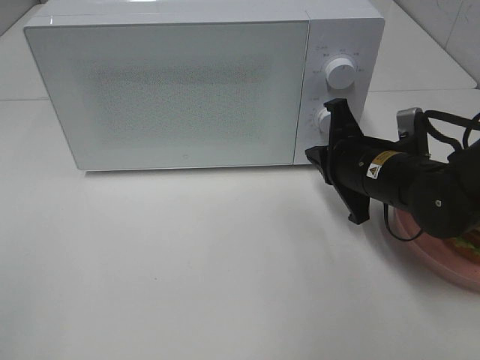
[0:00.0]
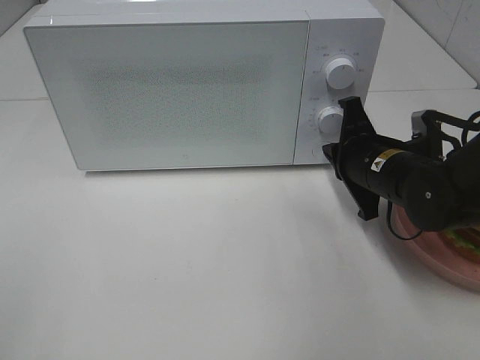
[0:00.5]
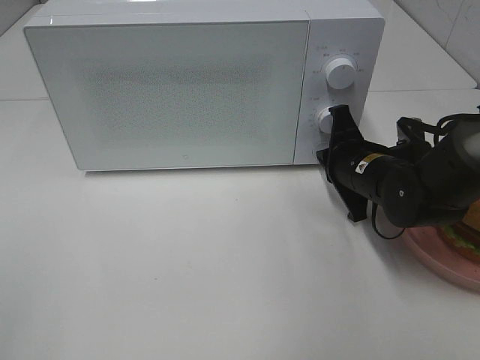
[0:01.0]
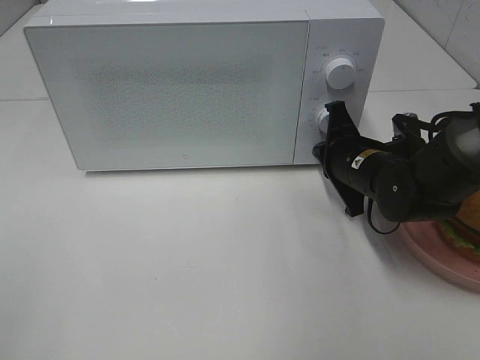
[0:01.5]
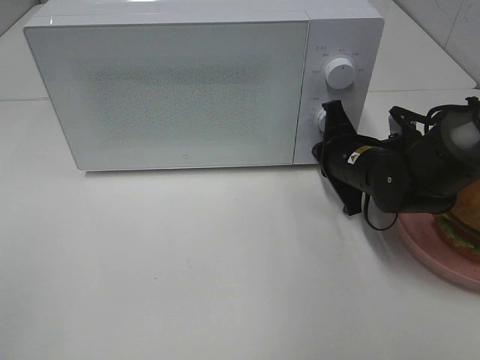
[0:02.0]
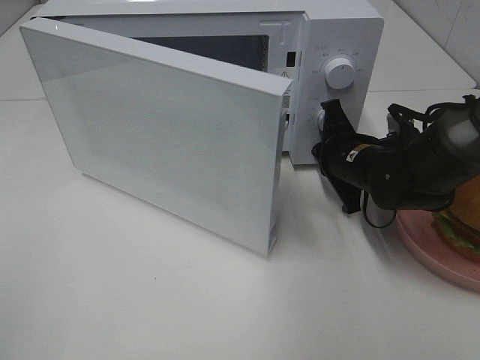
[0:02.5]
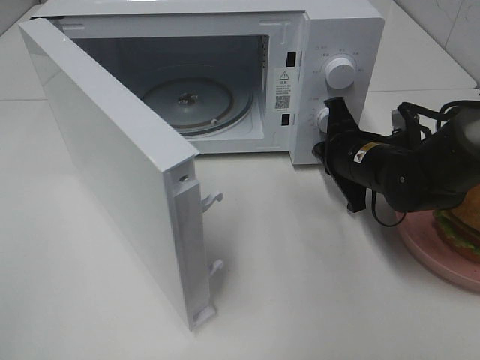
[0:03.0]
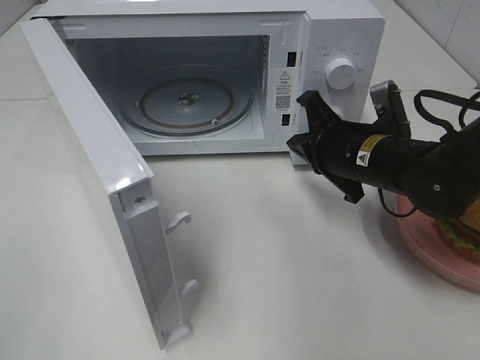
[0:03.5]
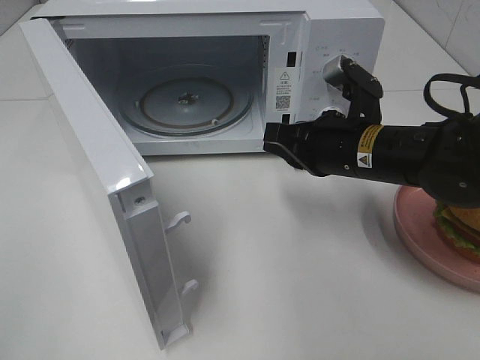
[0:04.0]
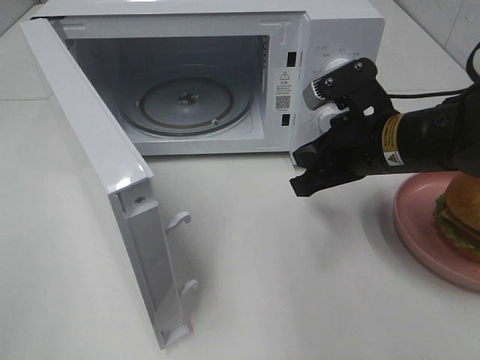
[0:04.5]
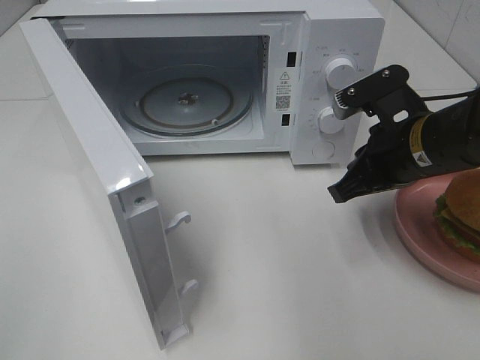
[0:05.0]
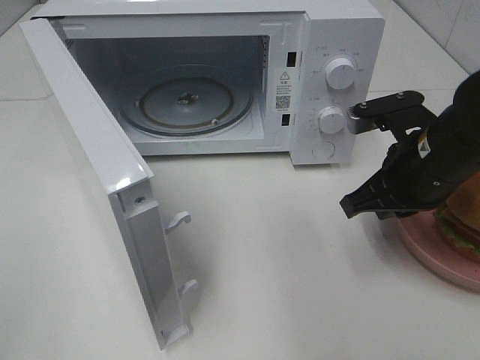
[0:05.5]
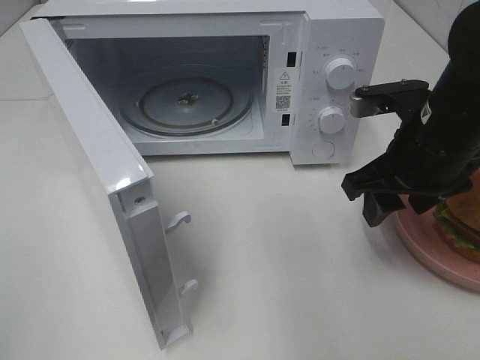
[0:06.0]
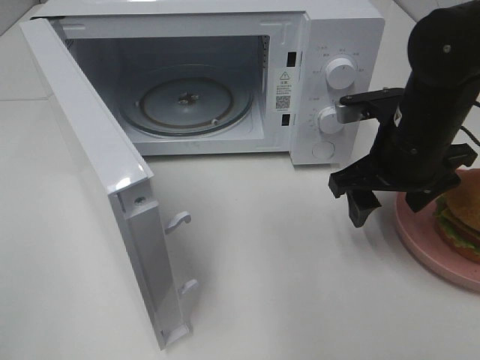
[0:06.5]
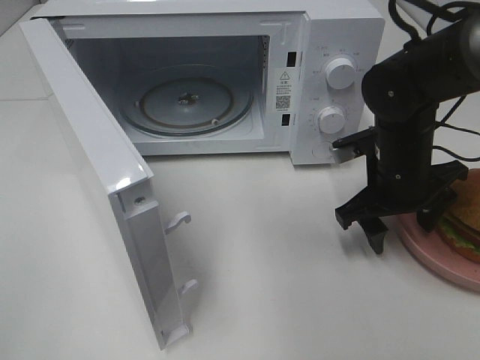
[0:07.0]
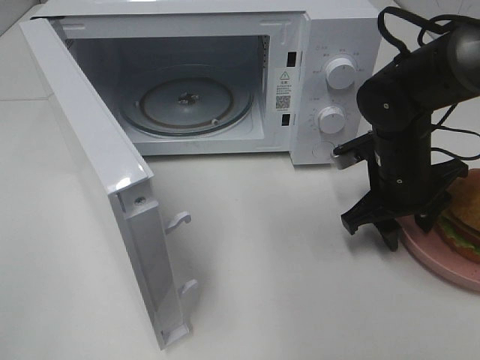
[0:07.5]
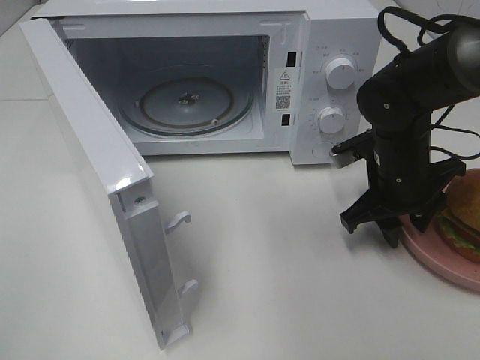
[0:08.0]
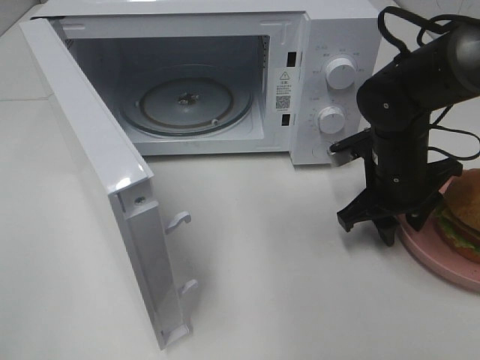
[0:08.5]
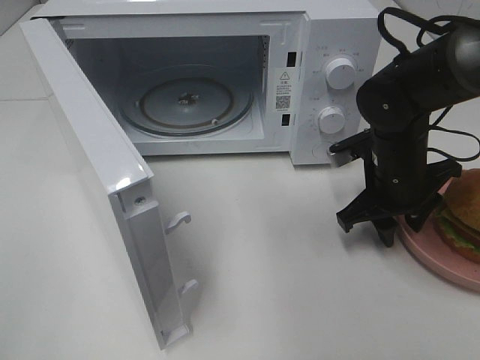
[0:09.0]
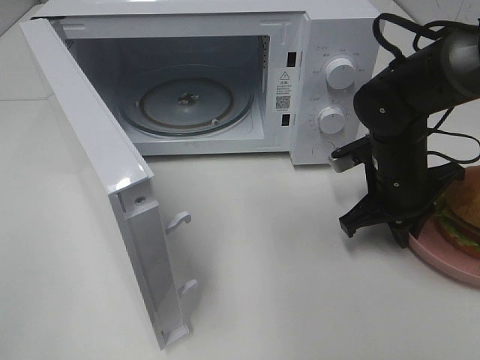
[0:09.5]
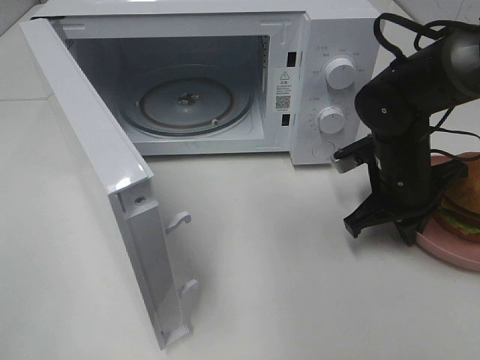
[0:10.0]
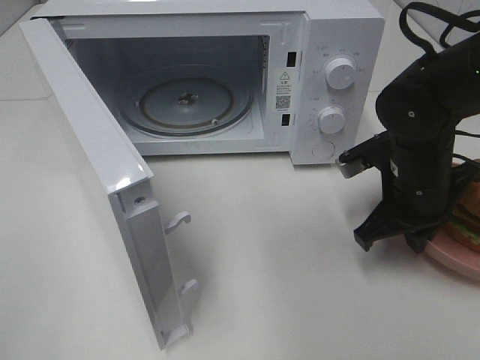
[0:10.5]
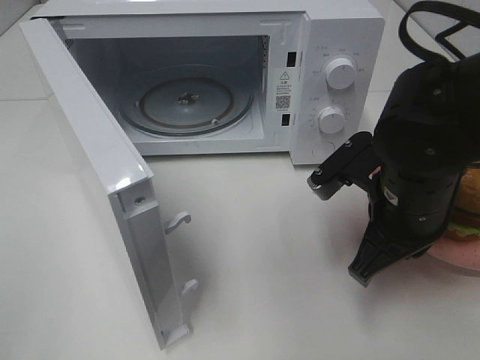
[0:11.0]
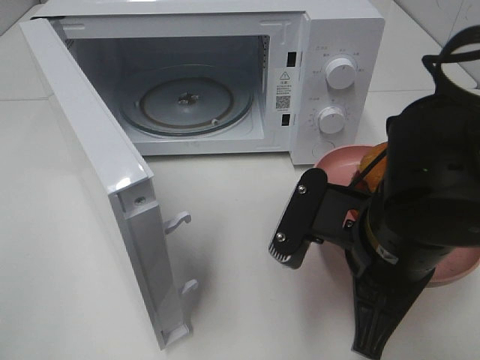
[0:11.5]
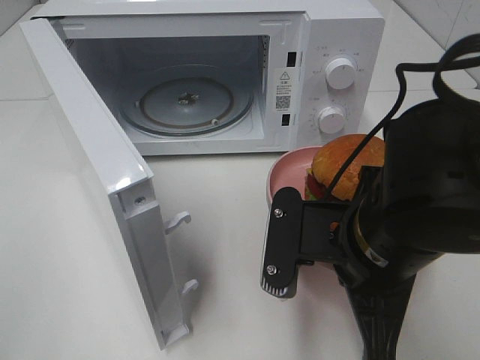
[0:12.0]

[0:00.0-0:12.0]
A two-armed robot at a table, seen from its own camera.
Task of the whole recording: Heat the burger.
Step, 0:00.0 to 0:03.0: Right hand: press the switch.
Step, 0:03.5 to 0:10.0: Right hand: grab the plate with the hamburger.
0:00.0 to 0:02.0: The right gripper changes place by about 5 cm.
0:02.0 to 0:04.0: The right gripper is displaced upward and backward by some 10 cm.
0:04.0 to 0:06.0: The right gripper shifts roughly 5 cm to the right, and opens up.
0:06.0 to 0:08.0: The right gripper goes some 10 cm downward and forward.
0:08.0 to 0:10.0: The right gripper closes.
0:10.0 to 0:12.0: The right gripper heads backward, to the left and upward, covering roughly 20 cm.

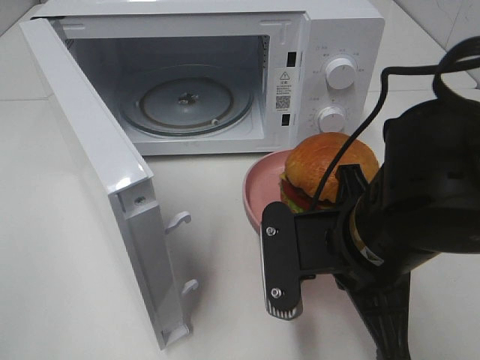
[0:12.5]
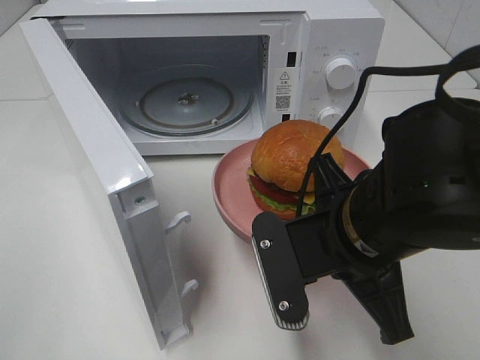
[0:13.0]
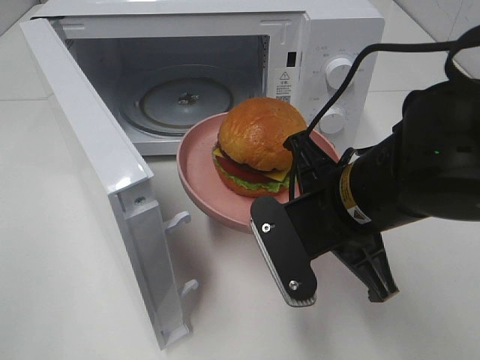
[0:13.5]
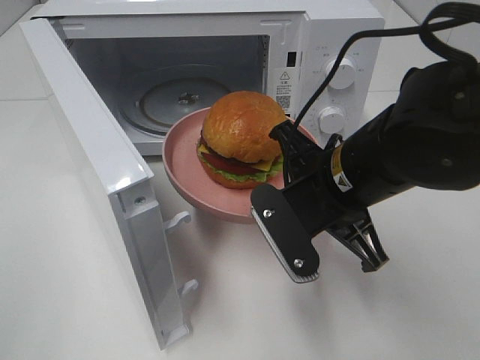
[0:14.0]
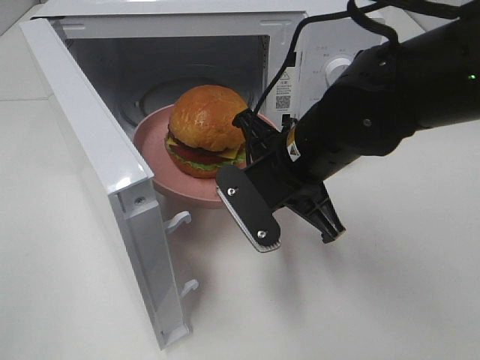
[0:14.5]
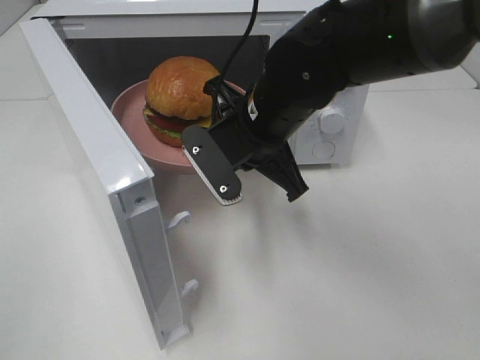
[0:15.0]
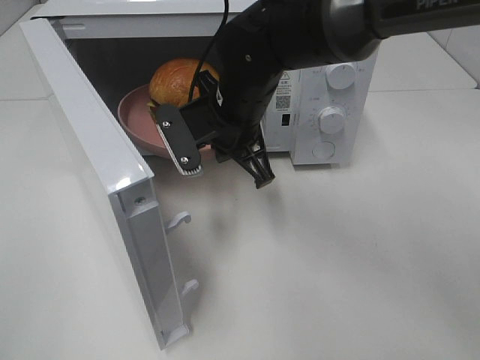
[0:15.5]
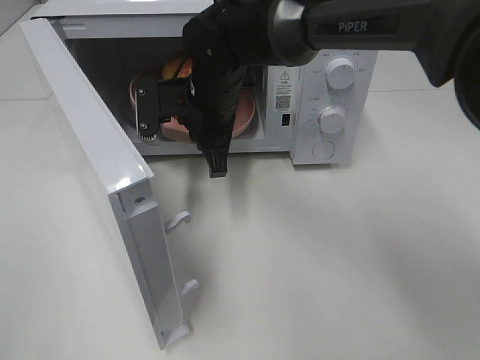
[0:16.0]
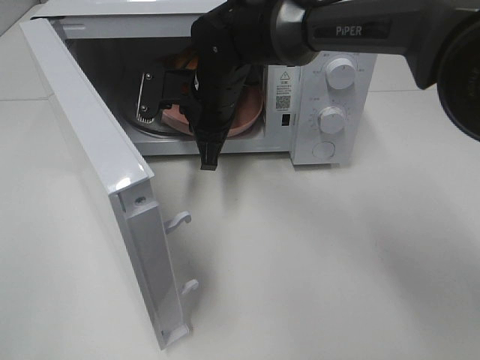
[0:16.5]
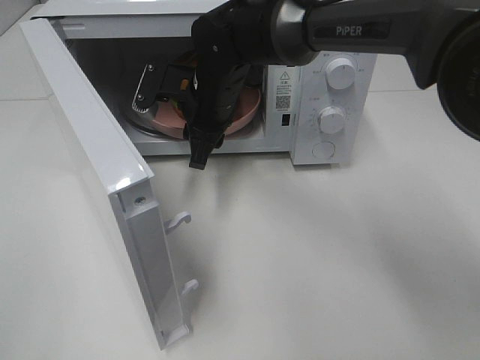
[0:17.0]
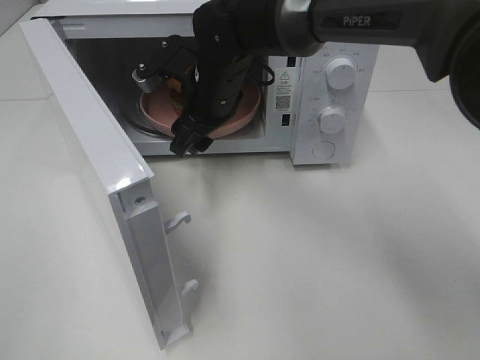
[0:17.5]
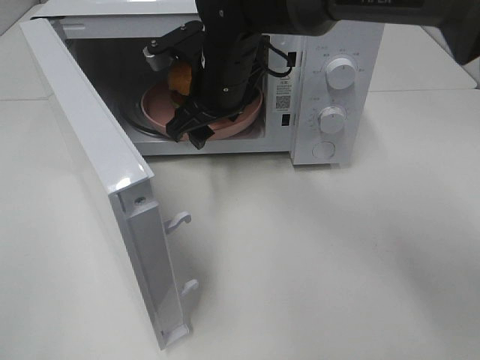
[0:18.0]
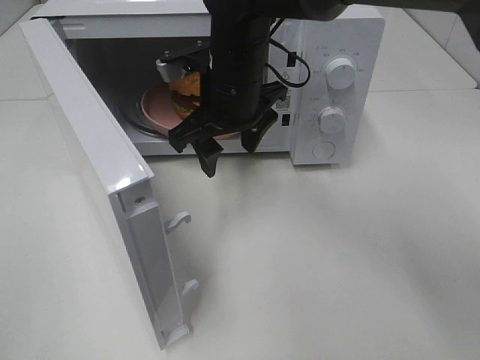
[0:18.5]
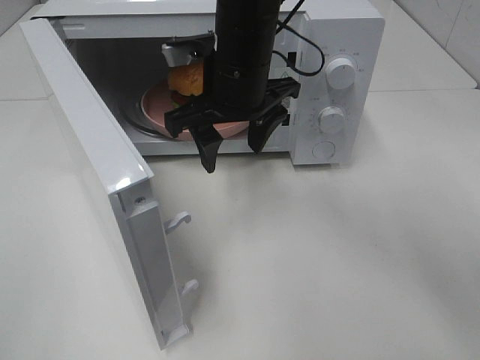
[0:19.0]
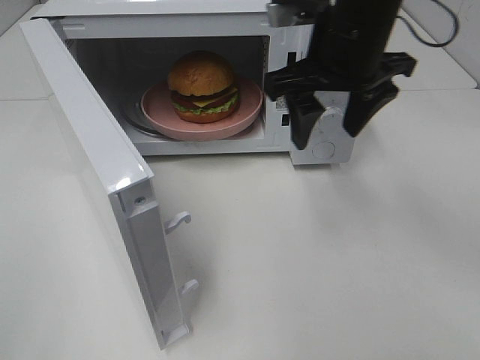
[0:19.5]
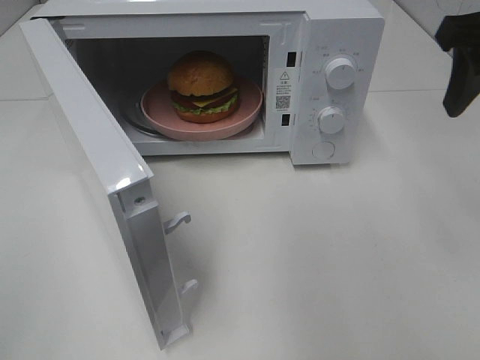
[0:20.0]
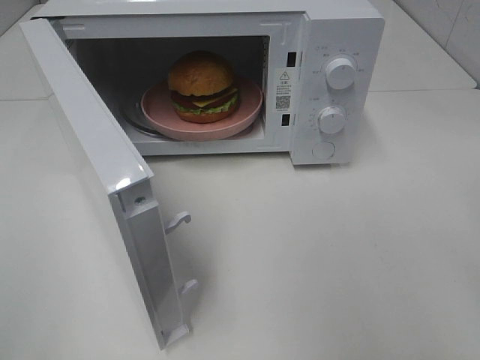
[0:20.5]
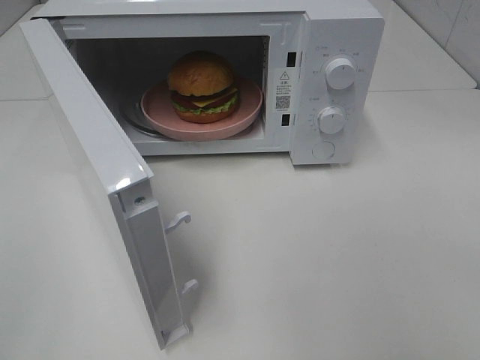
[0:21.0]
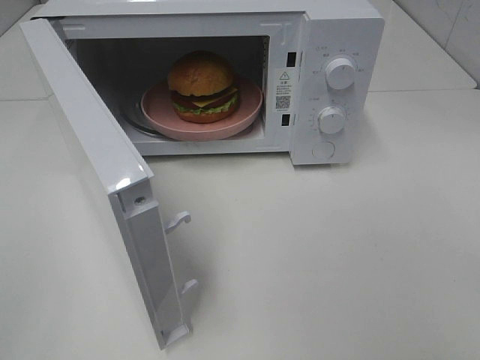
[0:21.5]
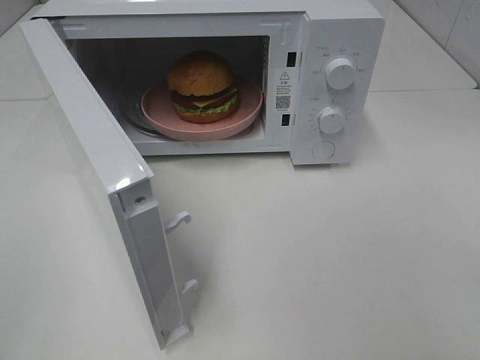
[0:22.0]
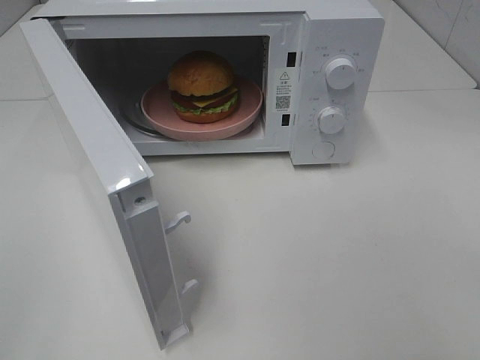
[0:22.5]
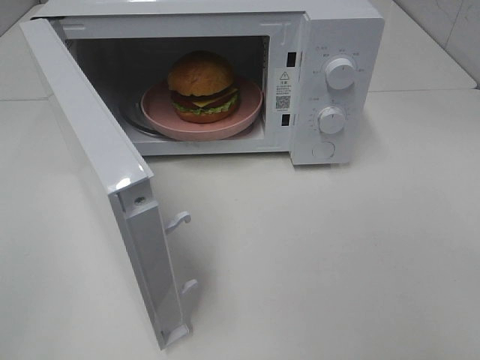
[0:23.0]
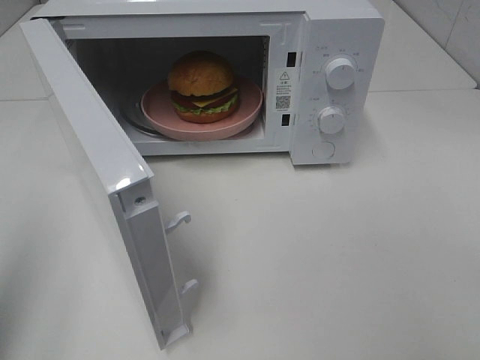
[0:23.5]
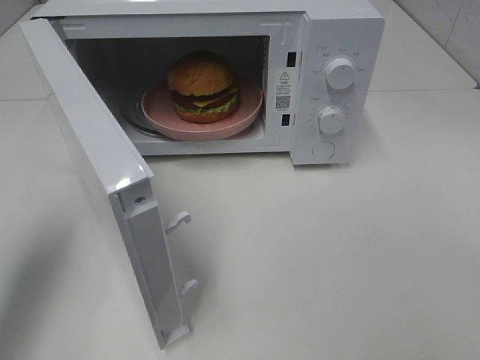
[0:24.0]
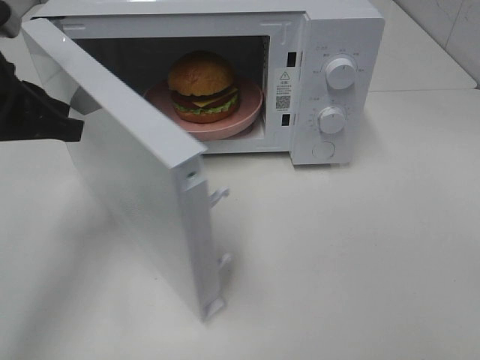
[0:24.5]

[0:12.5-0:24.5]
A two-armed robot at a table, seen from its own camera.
Task of the whole recording: Heat the burger.
Step, 0:12.5 to 0:17.0: Right hand: place the plate in the microwave.
0:12.5 to 0:14.5: The right gripper travels forward by approximately 10 cm.
0:14.5 to 0:16.5: The right gripper moves forward and to the left, roughly 15 cm.
0:16.5 to 0:18.5: The right gripper ends up roughly 5 cm from where it was, and opens its fingers.
0:18.5 to 0:20.5: The right gripper heads to the right, backward and upward, covering approximately 35 cm.
0:22.5 to 0:24.5: The left gripper moves forward, some 25 cm.

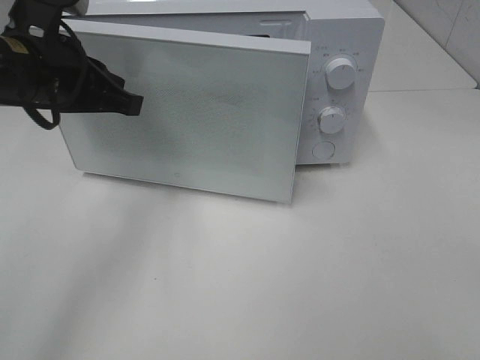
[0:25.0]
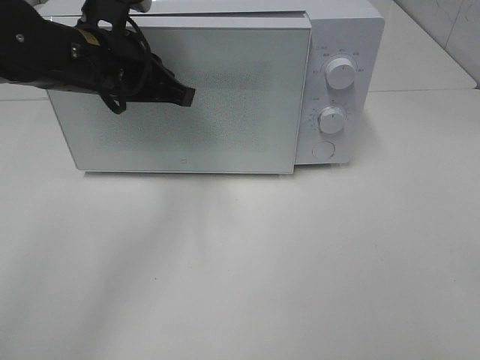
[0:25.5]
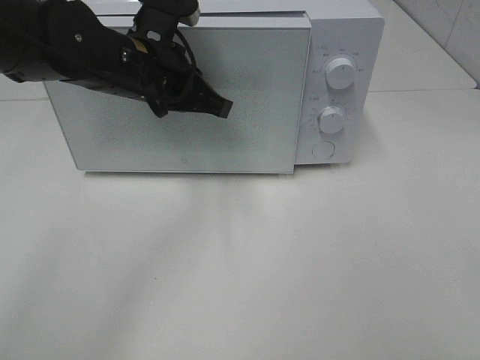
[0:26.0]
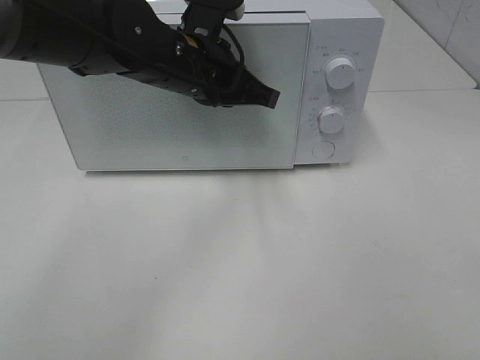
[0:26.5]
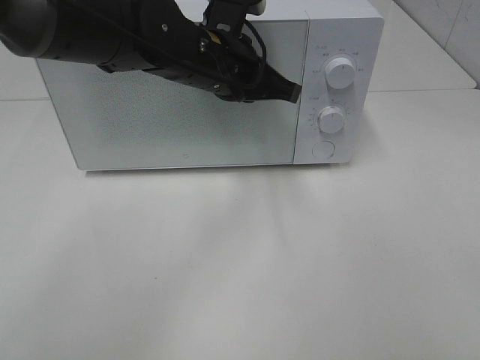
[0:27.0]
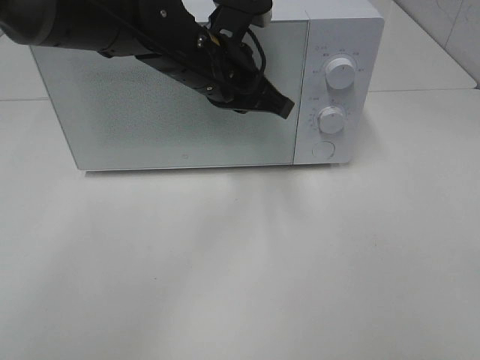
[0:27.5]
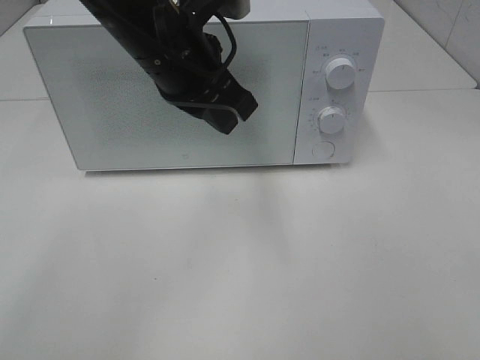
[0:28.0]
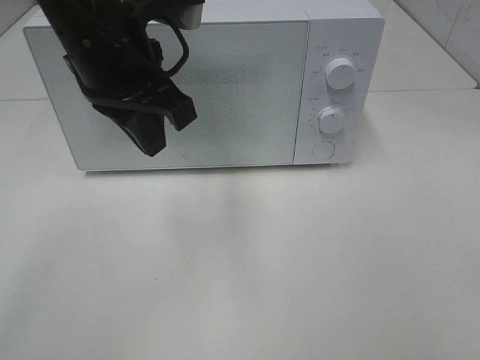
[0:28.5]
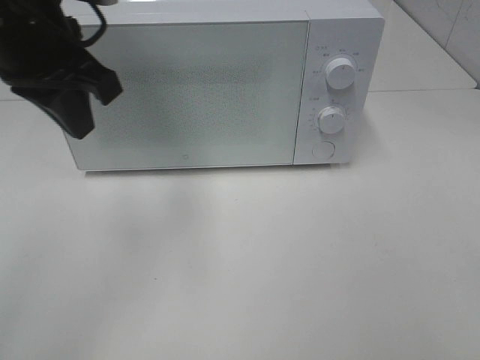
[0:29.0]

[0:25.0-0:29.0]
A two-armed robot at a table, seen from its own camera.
Task of the whole recording: Heat the burger.
Step, 0:25.0 to 0:27.5: Left hand: close the microwave door.
0:25.0 to 0:27.0: The left gripper heads to the right and forward, covering about 15 cm.
0:27.0 to 0:29.0: The left gripper heads to the left, upward and backward, covering about 20 cm.
